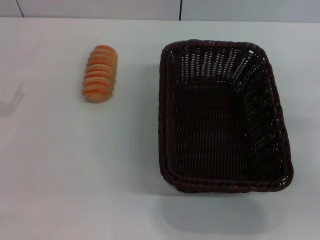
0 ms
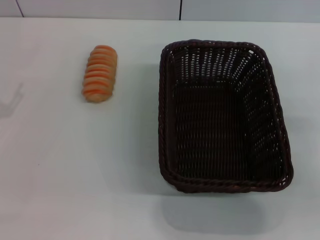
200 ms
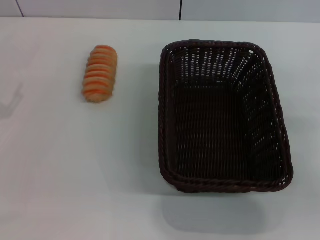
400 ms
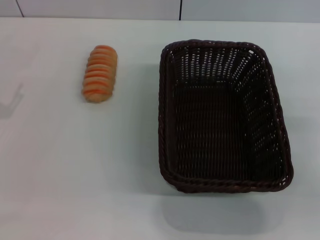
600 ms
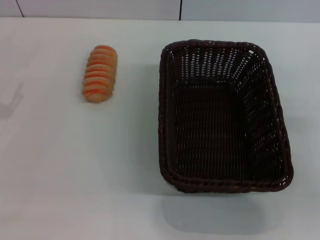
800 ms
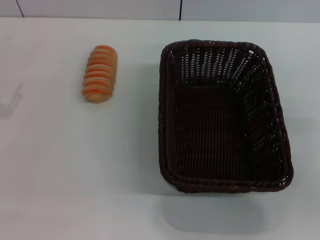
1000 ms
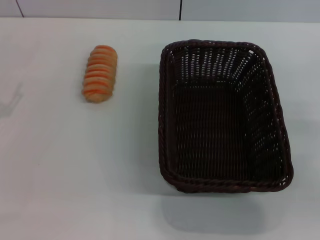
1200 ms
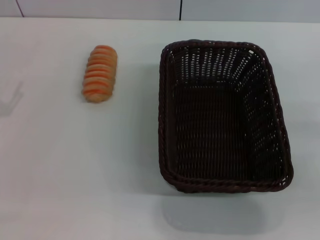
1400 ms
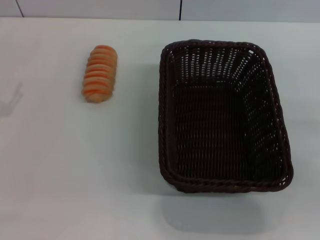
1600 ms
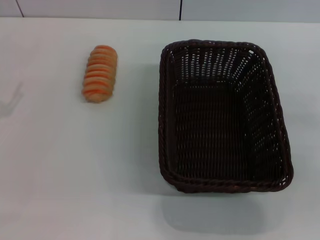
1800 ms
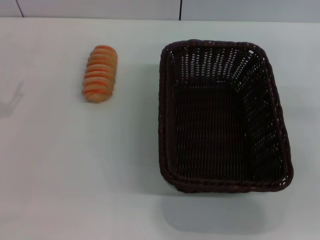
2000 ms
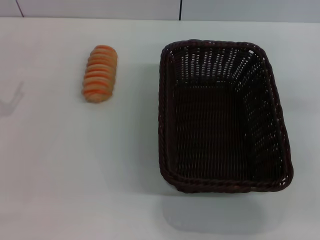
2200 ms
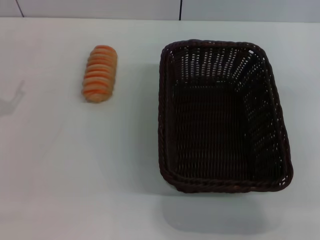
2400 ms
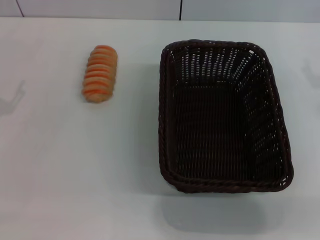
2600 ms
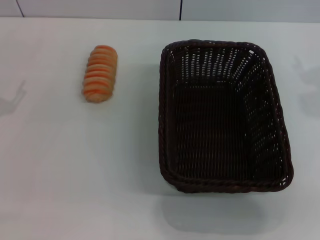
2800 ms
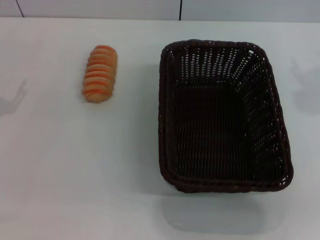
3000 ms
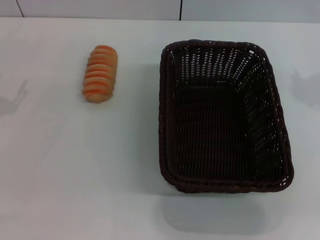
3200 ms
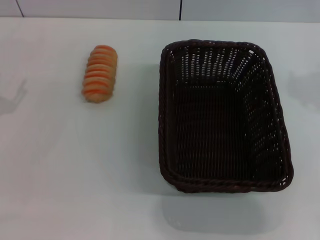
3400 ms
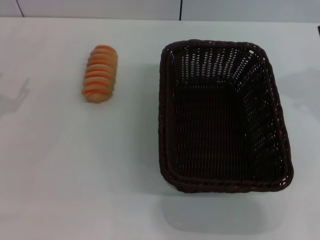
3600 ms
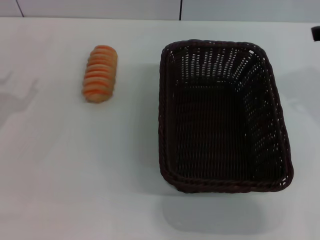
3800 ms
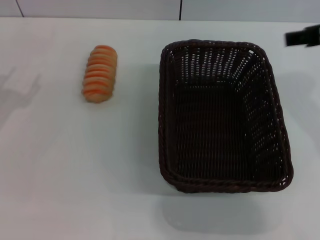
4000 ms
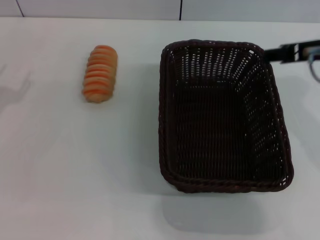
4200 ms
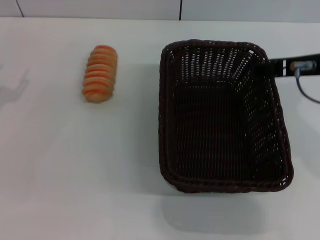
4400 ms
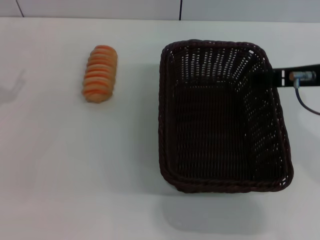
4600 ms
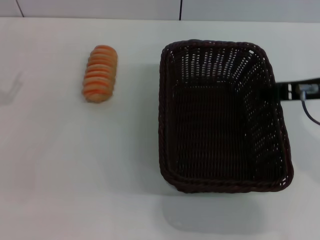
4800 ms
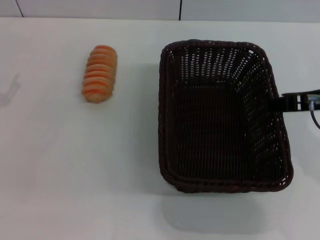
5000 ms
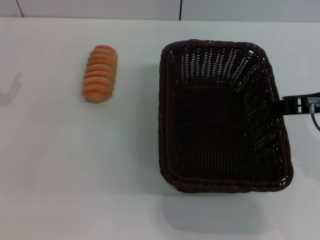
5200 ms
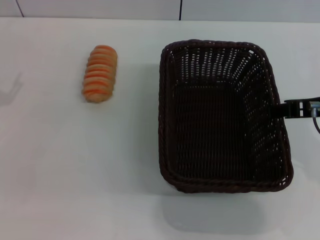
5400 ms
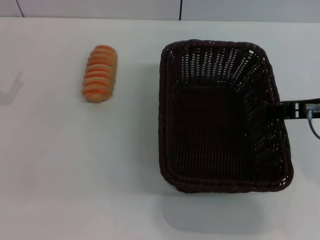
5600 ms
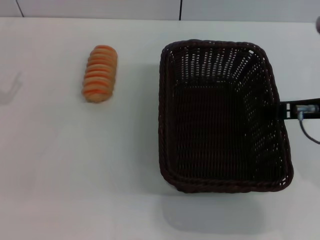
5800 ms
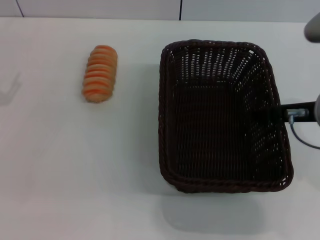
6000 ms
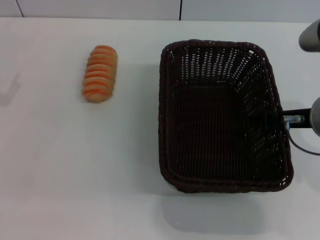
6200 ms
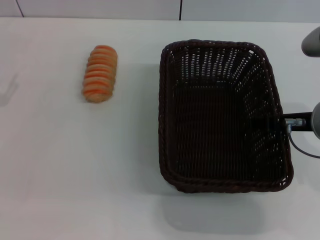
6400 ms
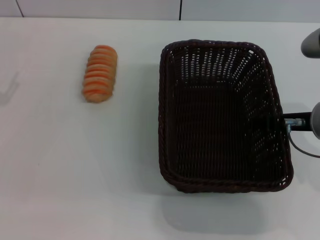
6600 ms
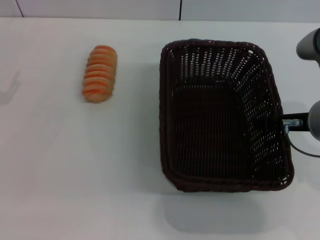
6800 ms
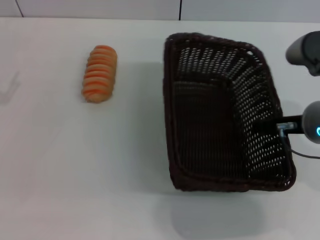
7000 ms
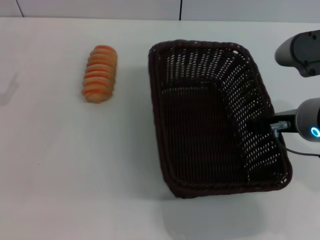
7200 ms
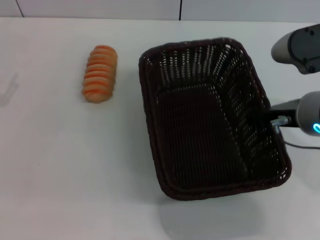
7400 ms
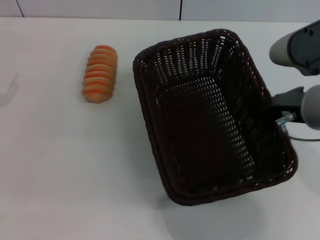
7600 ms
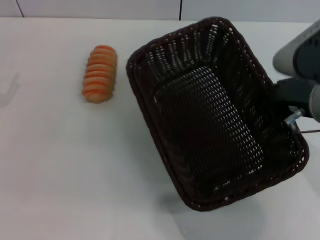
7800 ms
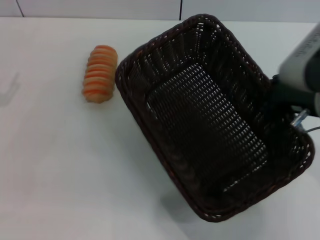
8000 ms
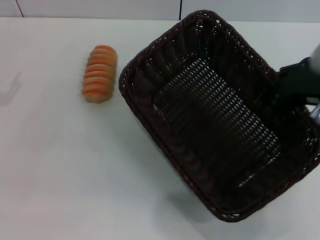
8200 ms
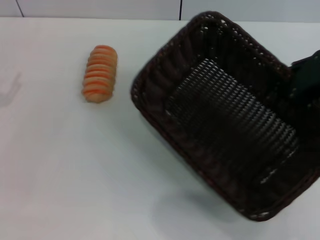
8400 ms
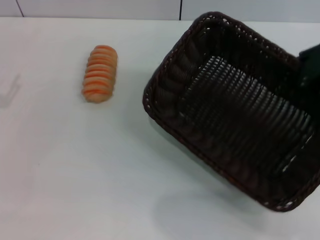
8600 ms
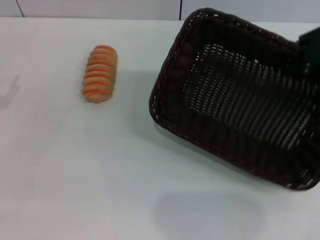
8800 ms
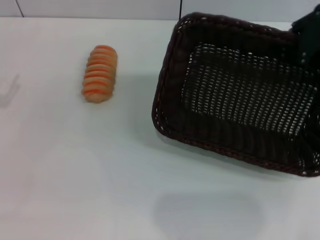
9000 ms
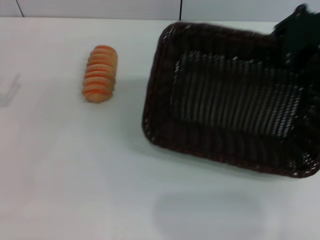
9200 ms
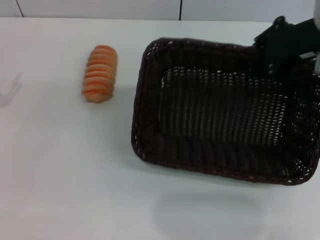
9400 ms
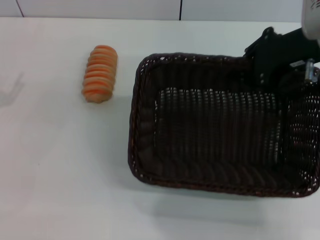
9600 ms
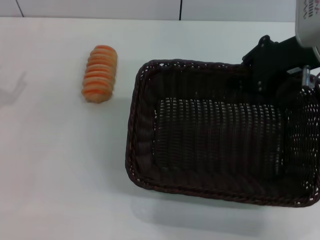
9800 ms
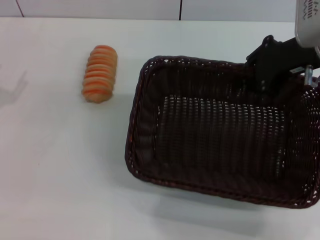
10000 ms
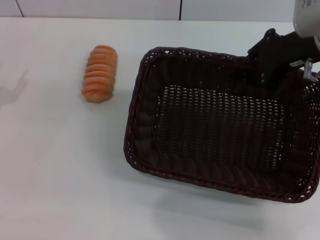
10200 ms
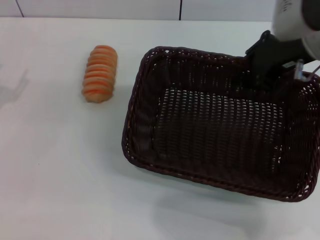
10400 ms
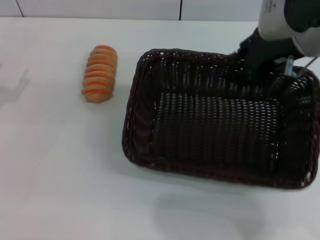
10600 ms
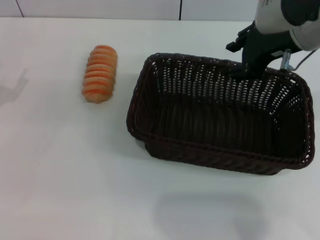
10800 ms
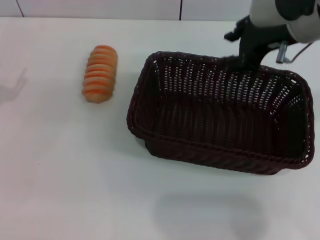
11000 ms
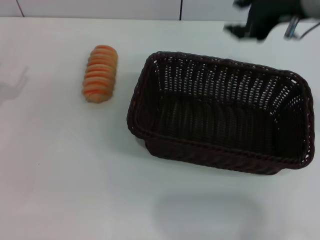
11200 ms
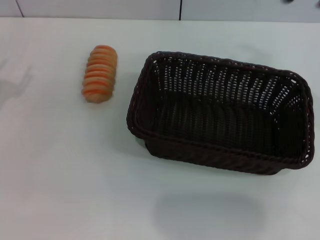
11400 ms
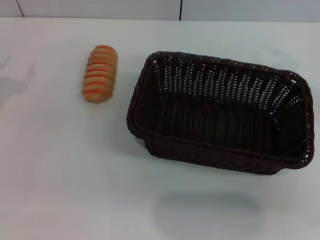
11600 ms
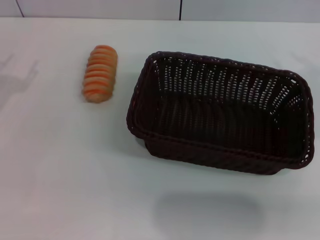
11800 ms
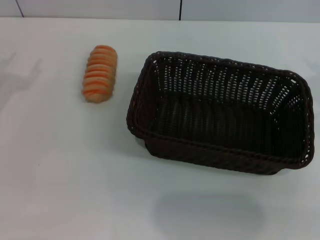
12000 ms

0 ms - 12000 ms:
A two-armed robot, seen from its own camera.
Step, 0 ms - 7800 ms: Pick up the dark basket with the right gripper.
Step, 8000 ms - 11000 ms: Place the dark basket in the center of view with the right gripper.
3000 ms - 4400 ms: The right gripper shifts approximately 10 cm to the left.
4400 ms - 6000 ms: The right gripper ends up approximately 5 cm from where it was.
6000 ms - 7600 ms: The right gripper closes up.
7600 ms - 9000 ms: The right gripper is displaced upward, to the right and forward by roughly 10 cm.
9000 ms - 10400 ms: The right gripper is displaced to the left by about 5 cm.
10400 ms - 12000 ms: The right gripper travels to the right and backward by some 15 cm, and opens up.

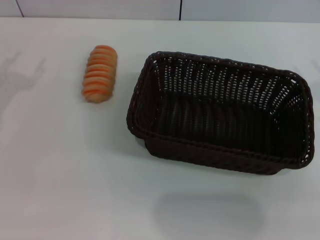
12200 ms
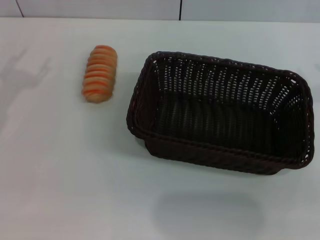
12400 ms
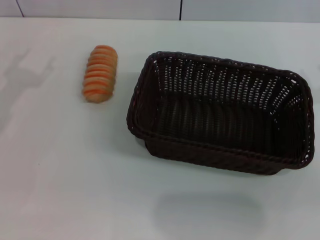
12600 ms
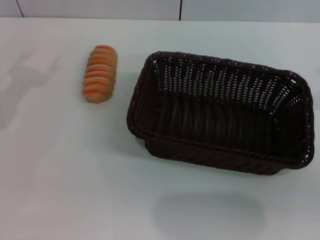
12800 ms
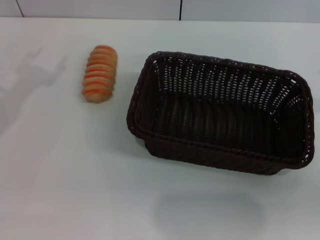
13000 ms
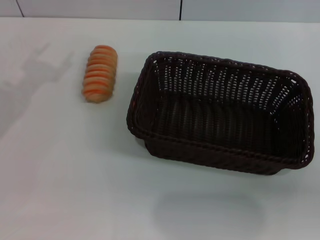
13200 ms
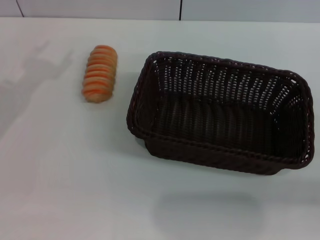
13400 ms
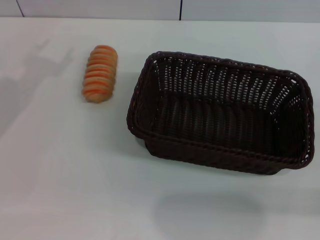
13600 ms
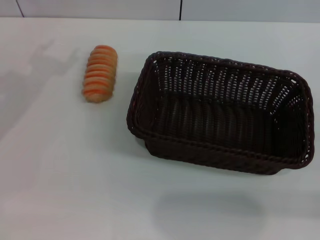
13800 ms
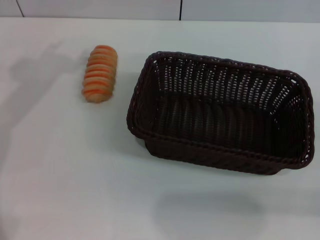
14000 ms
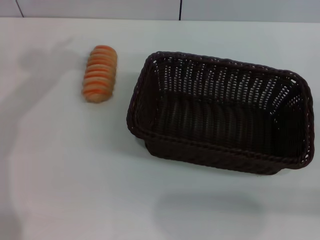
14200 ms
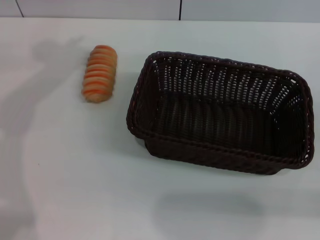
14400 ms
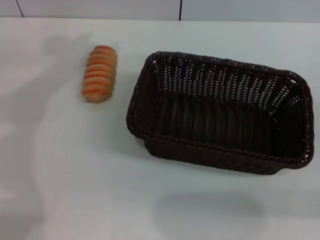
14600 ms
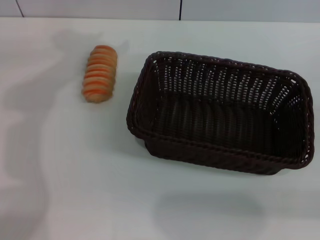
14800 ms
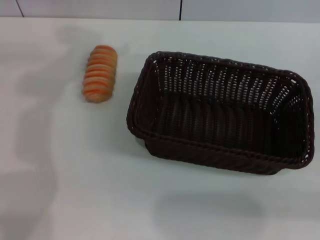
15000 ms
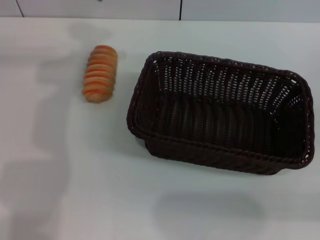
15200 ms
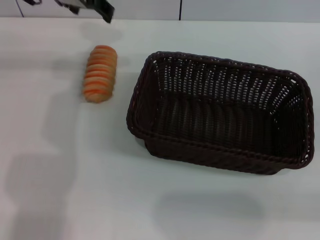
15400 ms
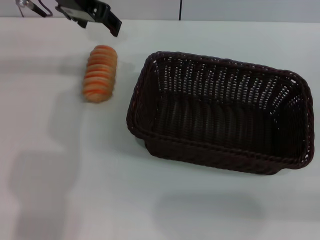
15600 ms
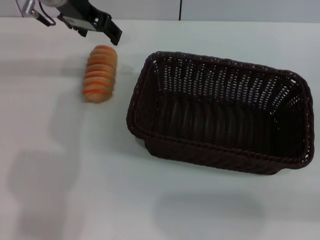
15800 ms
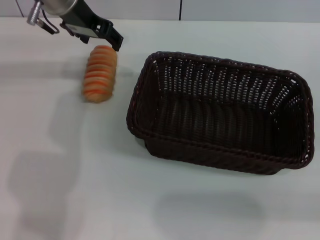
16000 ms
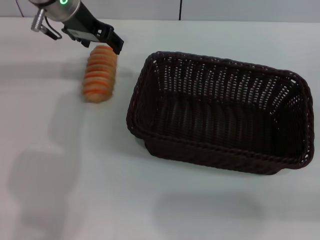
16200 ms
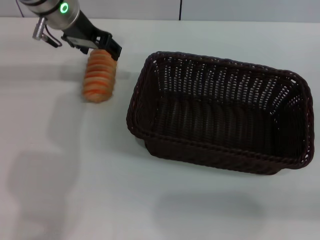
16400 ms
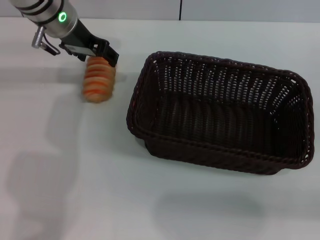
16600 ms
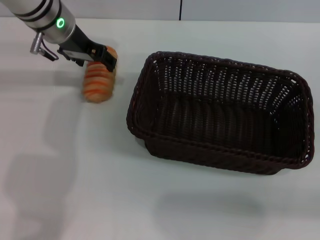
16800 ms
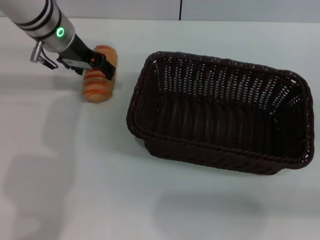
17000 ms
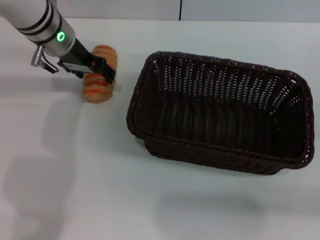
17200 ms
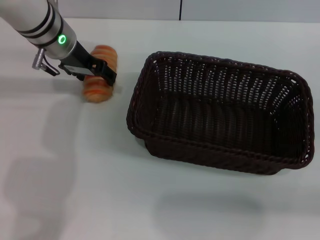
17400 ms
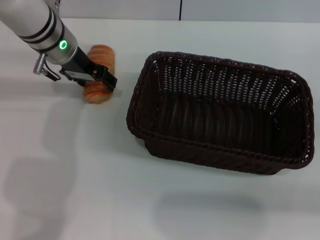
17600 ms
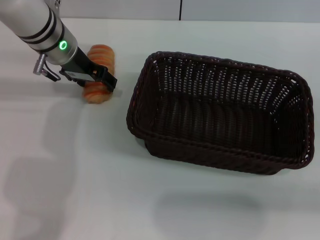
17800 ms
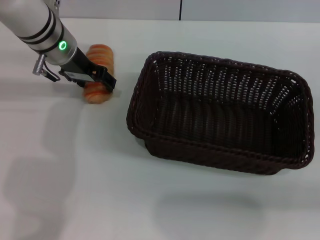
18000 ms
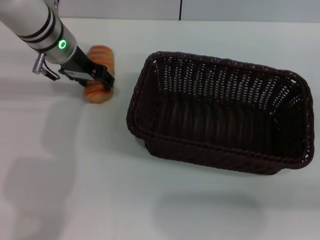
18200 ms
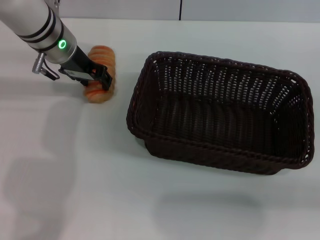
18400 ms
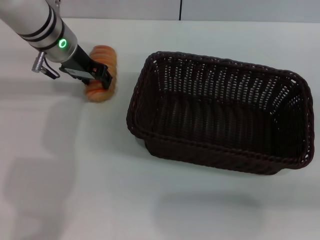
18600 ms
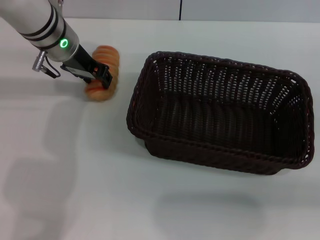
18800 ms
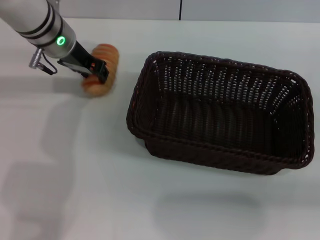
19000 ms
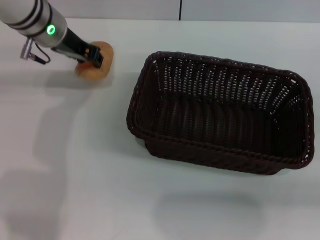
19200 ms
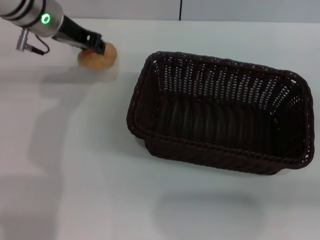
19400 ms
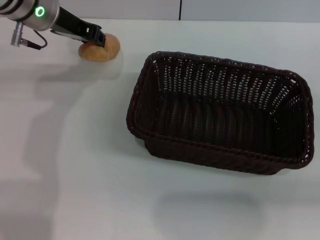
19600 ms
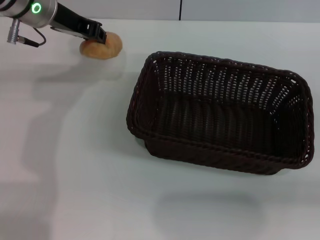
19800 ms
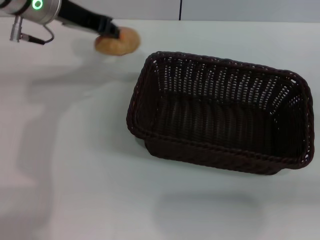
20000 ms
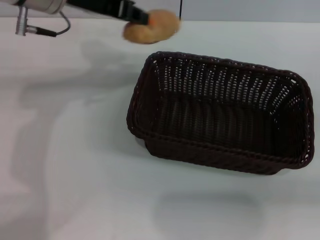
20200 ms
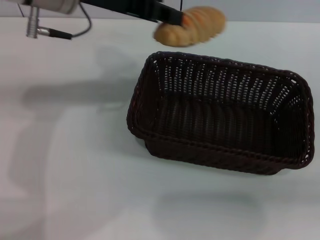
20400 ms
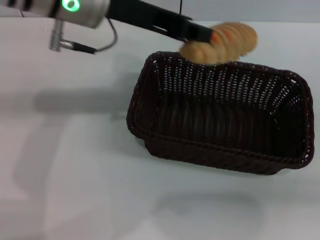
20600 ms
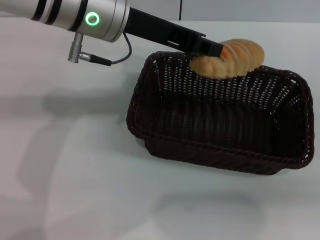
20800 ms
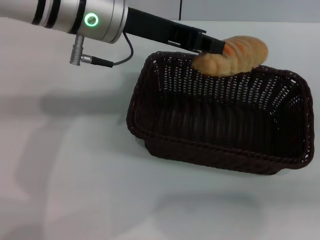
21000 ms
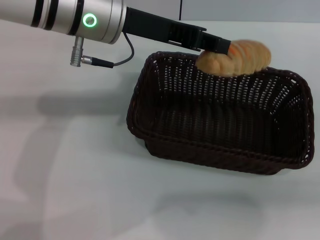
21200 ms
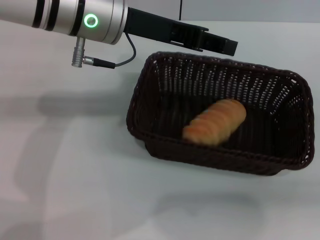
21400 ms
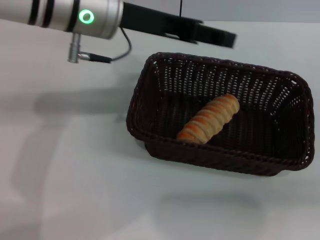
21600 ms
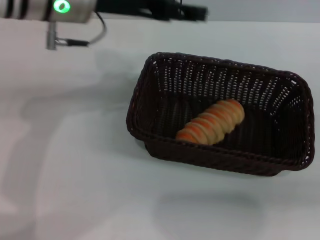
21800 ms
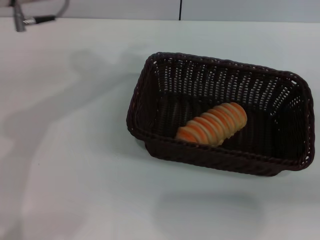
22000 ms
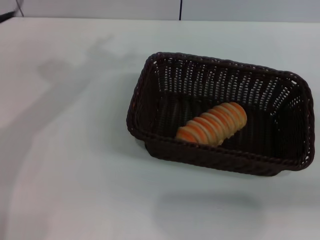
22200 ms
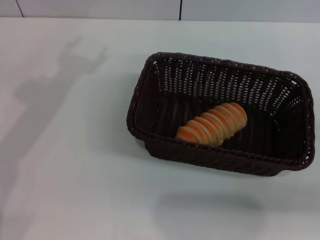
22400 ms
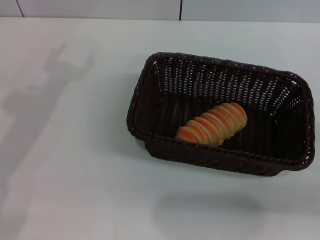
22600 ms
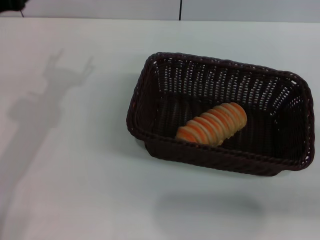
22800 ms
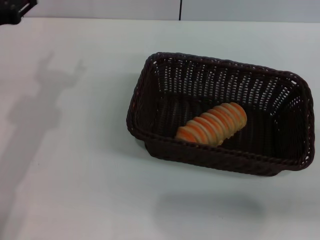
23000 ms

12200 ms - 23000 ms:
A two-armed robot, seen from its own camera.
Step, 12200 ms - 19600 ms: Pick up the long bread with the left gripper.
Step, 20000 ms - 21800 ms: Place the long bread into the dark basket with the left gripper.
13800 ms - 15200 ms: The left gripper is displaced forward and to the right by approximately 15 cm.
15200 ms - 16800 ms: The left gripper heads downward, covering approximately 10 cm.
16800 ms - 18400 ms: There are only small adjustments of the grippers.
18400 ms - 20000 ms: The left gripper moves upward, roughly 5 cm, and closes its fingers.
20000 ms - 21400 ms: The left gripper goes roughly 10 cm to the right and backward.
21400 ms - 23000 ms: The left gripper goes some 15 cm to the left, backward and downward, and opens.
